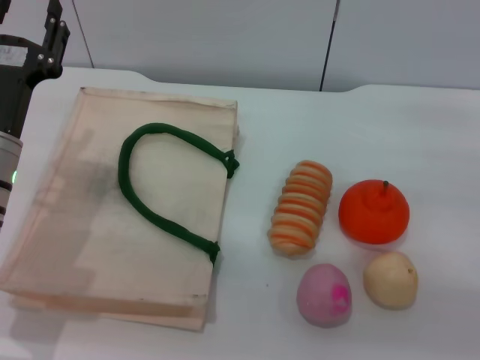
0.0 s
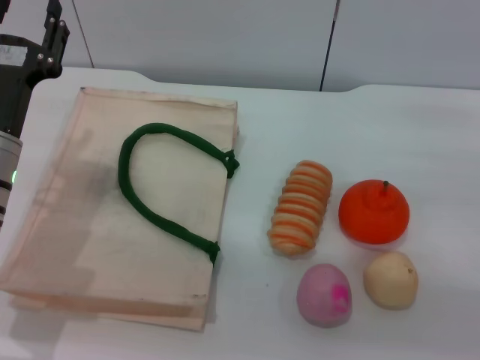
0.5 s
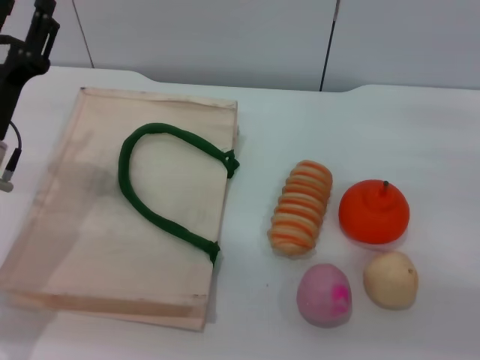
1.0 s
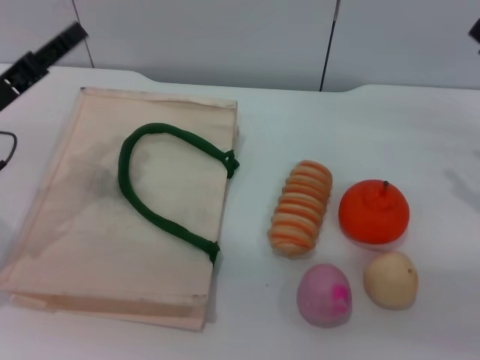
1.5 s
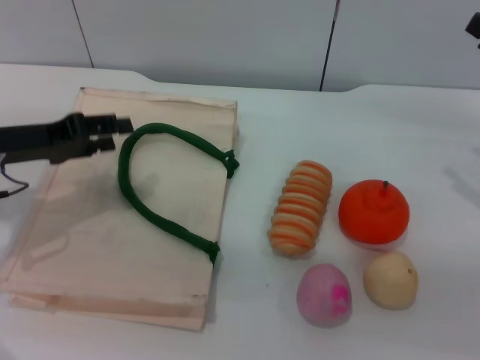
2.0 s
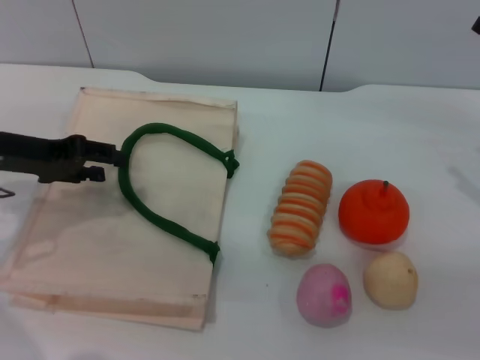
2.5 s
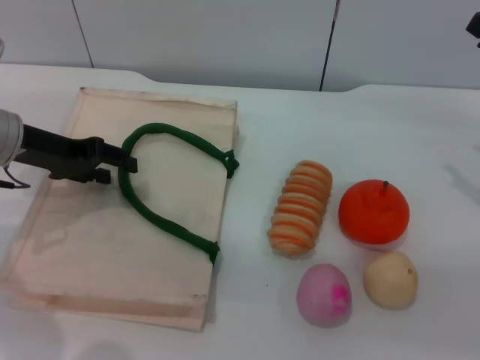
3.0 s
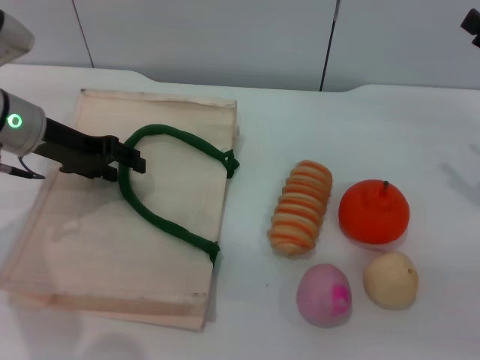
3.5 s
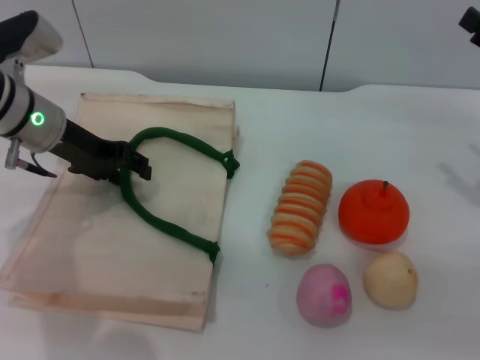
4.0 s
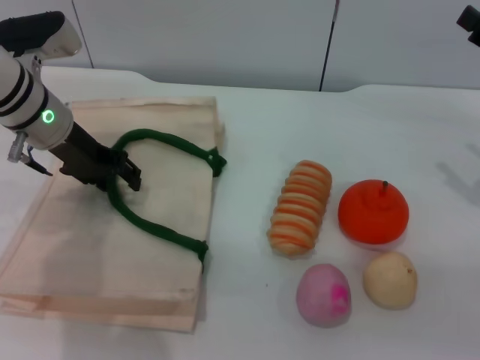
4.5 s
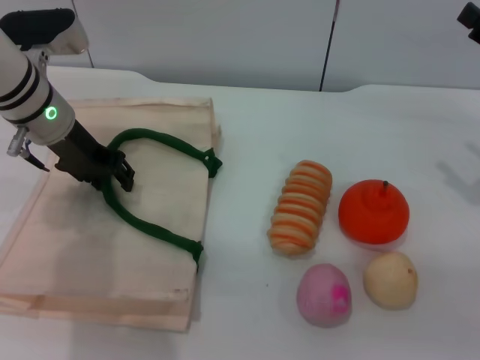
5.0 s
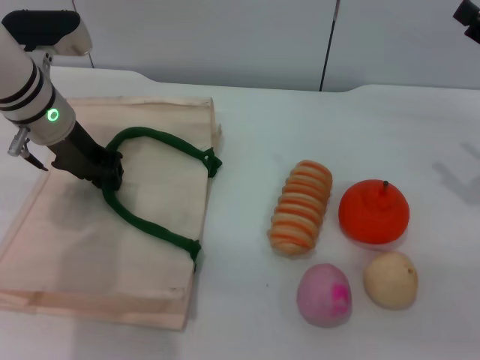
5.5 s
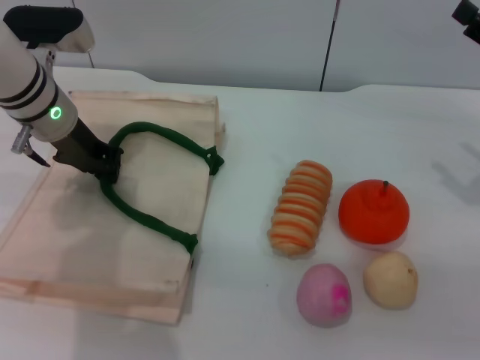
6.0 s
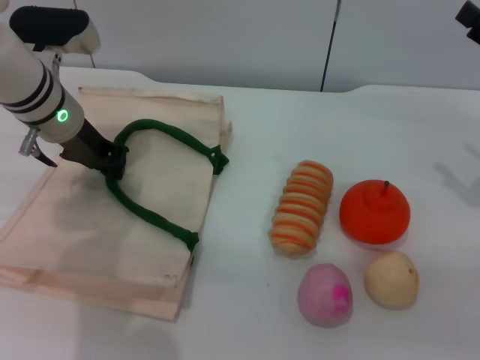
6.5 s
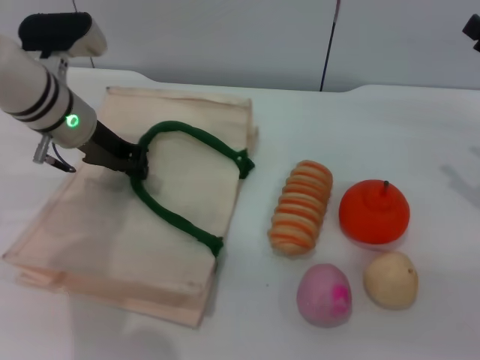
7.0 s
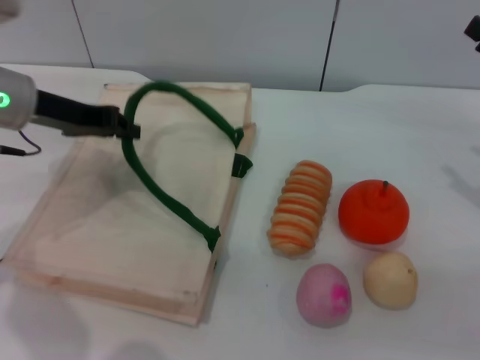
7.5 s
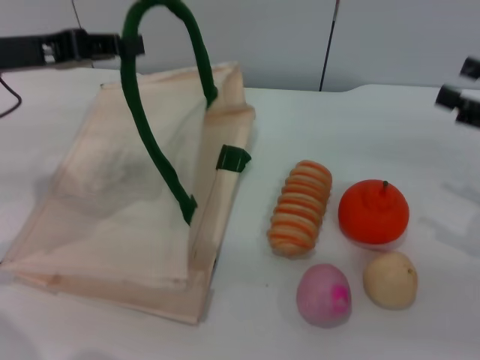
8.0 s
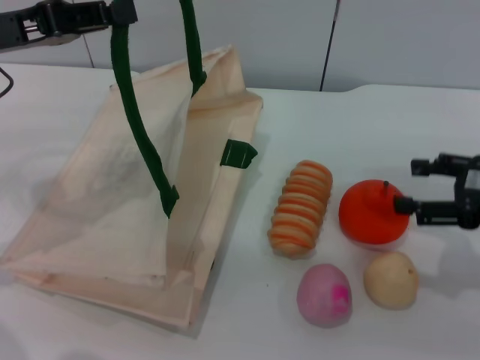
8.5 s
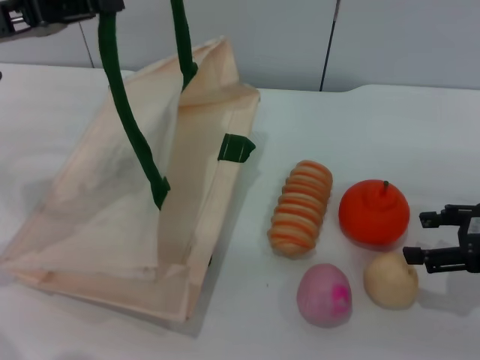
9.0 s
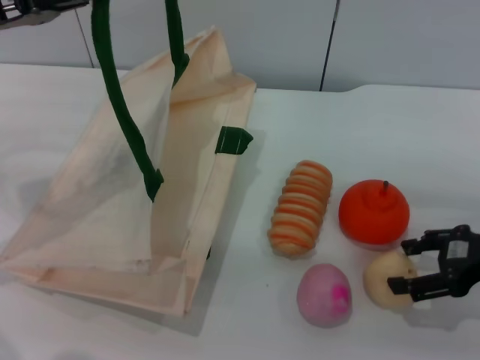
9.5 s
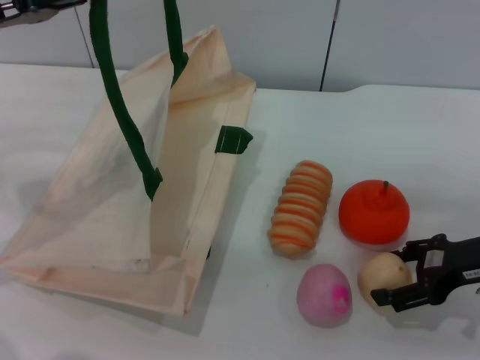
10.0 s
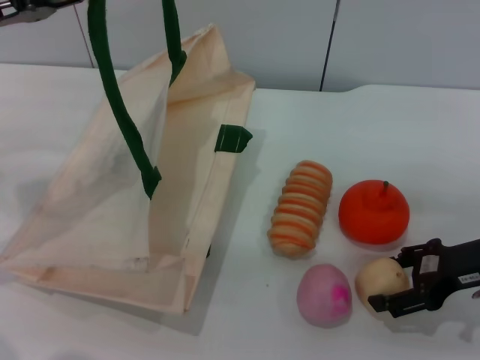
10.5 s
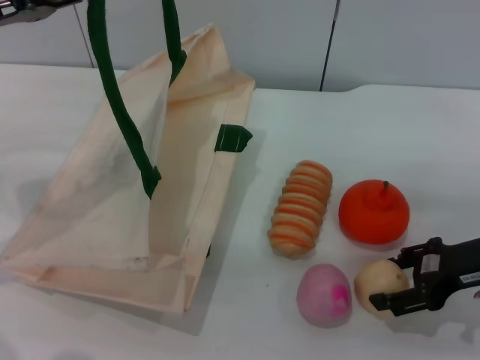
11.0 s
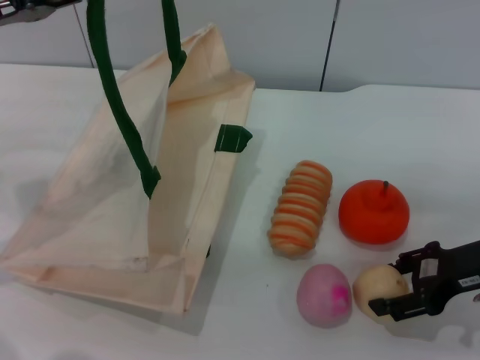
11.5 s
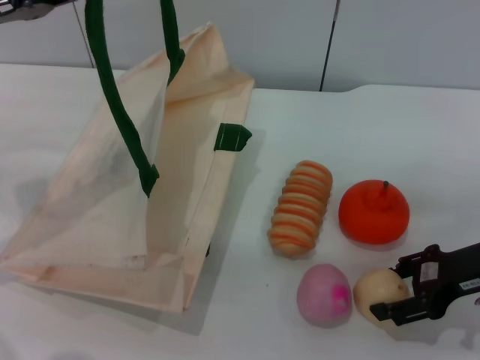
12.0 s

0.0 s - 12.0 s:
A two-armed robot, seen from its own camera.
Task of the whole recording: pick up the egg yolk pastry from the table and place it in the white handbag.
Step, 0.0 s - 7.5 s: Lift the woven bag with the left gripper to open it.
0.0 s - 2.0 s: The left gripper goes about 5 cm to the left.
2.0 s - 4.0 s: The left gripper heads forward and to the right, covering about 10 cm.
4.0 s - 6.0 s: The left gripper closes its fingers.
6.0 s - 8.0 s: The left gripper is displaced backward, upward and to the left by approximately 10 cm.
8.0 s - 10.0 s: The right gripper is displaced to the left and downward by approximately 10 cm.
10.0 s - 12.0 s: The right gripper closes up.

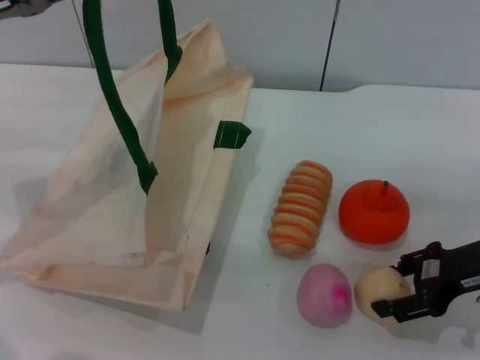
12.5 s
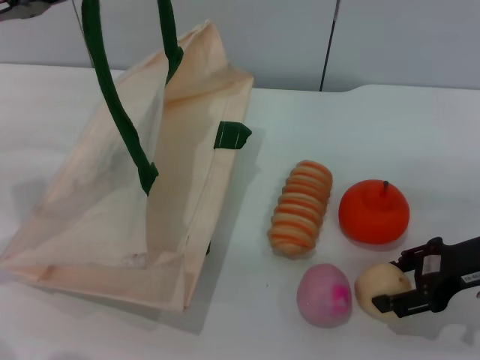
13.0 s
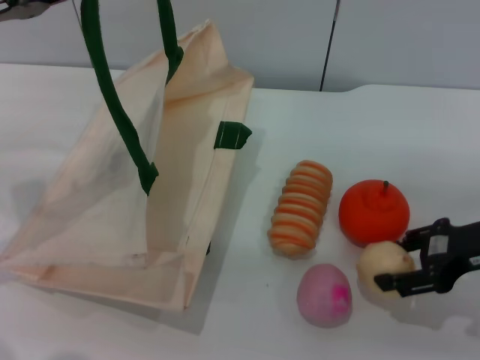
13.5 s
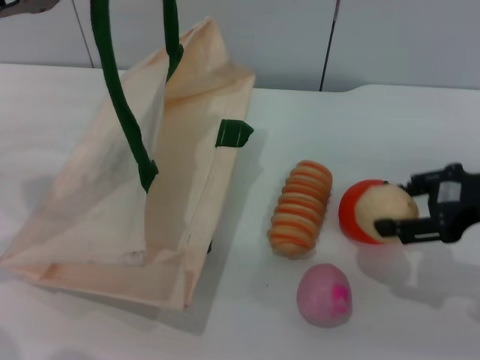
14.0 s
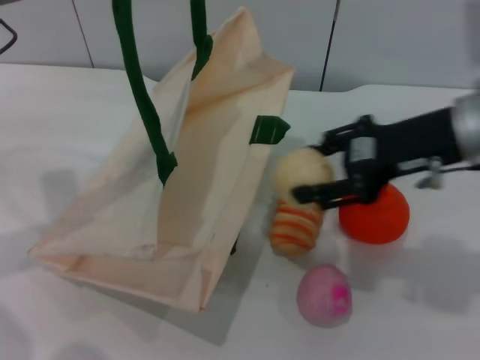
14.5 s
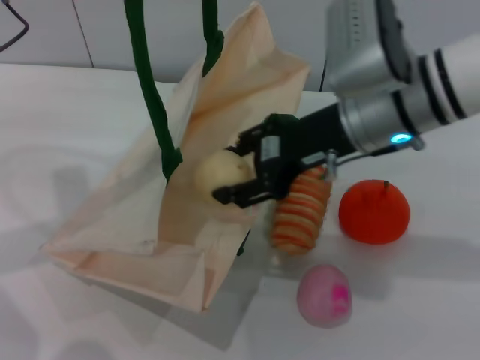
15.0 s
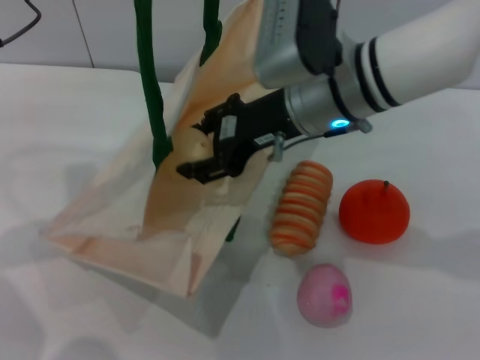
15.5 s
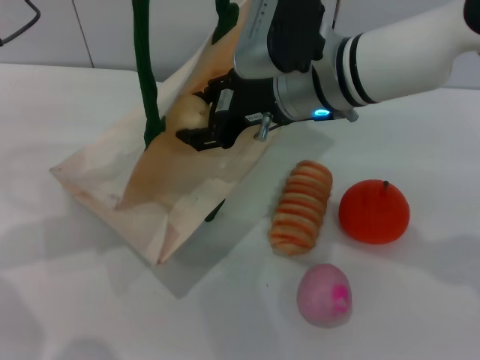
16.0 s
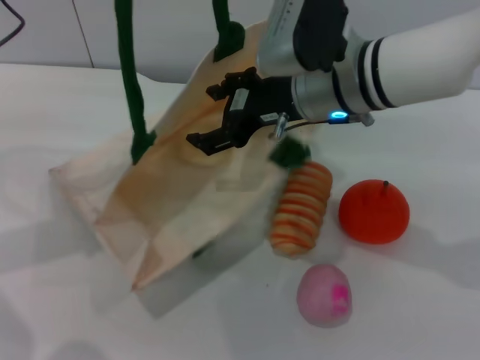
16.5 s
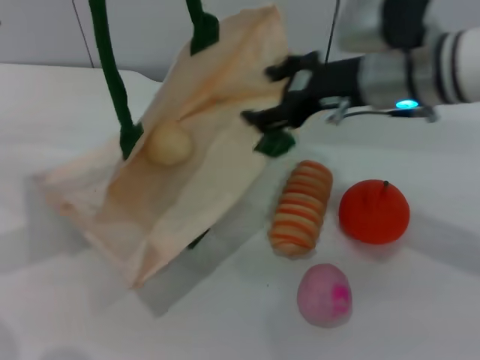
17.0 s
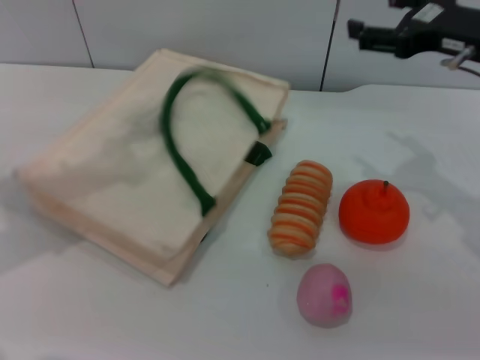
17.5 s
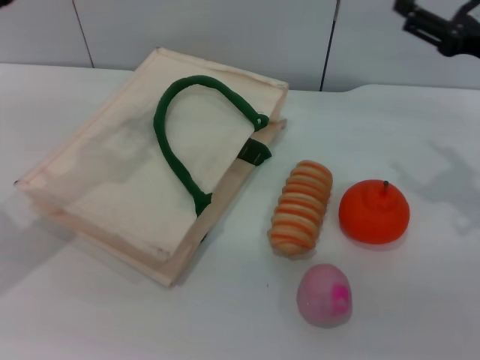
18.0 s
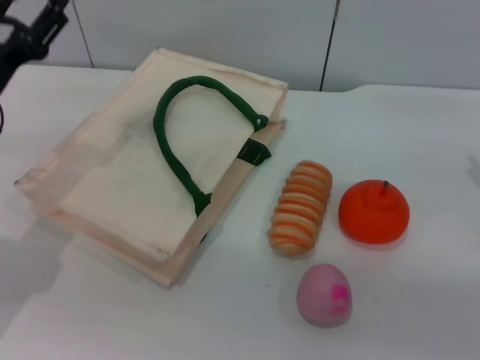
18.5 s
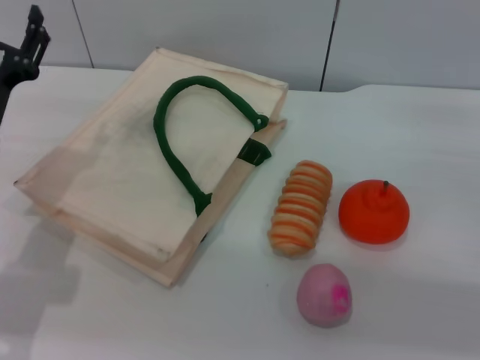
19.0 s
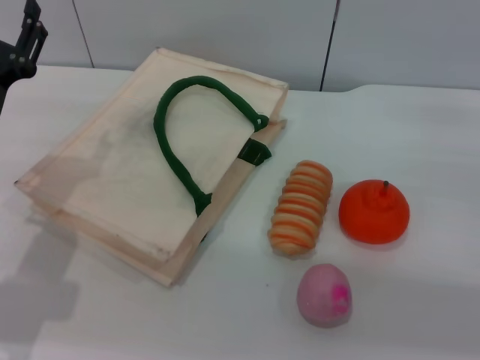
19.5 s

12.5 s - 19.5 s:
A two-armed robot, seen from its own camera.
Task of the whole recording: pick up the egg yolk pastry from the table and place it in the white handbag.
Step, 14.0 s - 17.0 s: Place the egg yolk pastry into the woven bag with the right gripper.
Step, 17.5 s - 18.5 s: Lower the woven bag with the left gripper to close it.
12.5 s - 14.5 s: The right gripper shifts about 10 cm upward and to the left.
14.5 s - 16.0 s: The right gripper goes approximately 15 cm to the left.
16.0 s - 17.5 s: The left gripper shifts by approximately 5 cm, while the right gripper moves to the right, some 20 cm, and opens.
17.5 s - 19.5 s: The right gripper travels downward, to the right and backward by roughly 15 cm. Meanwhile the left gripper travels downward by roughly 15 cm, and opens up.
